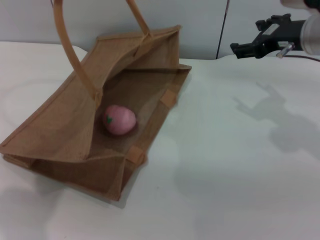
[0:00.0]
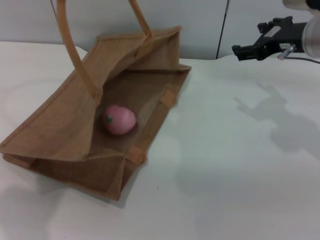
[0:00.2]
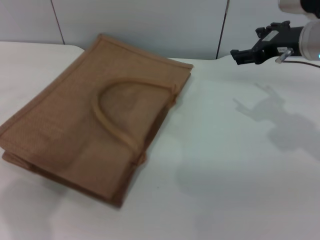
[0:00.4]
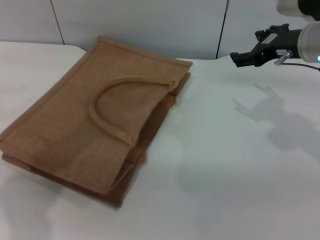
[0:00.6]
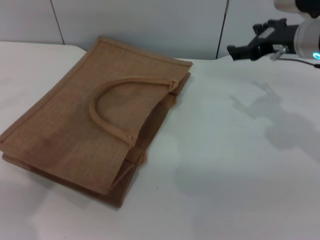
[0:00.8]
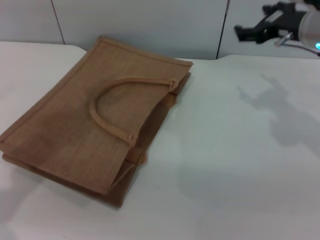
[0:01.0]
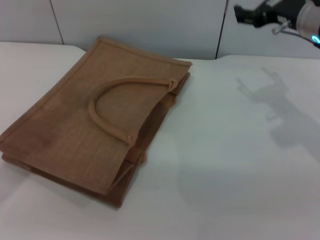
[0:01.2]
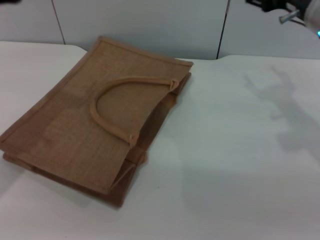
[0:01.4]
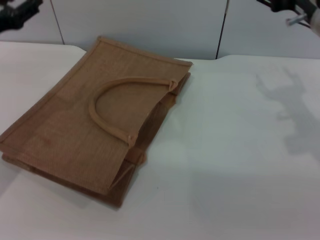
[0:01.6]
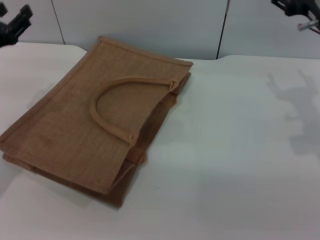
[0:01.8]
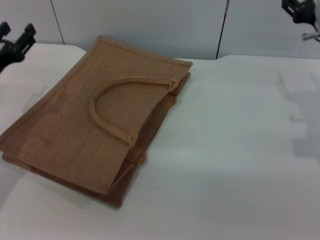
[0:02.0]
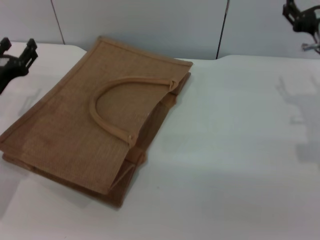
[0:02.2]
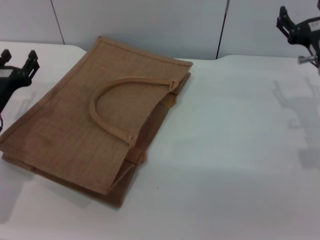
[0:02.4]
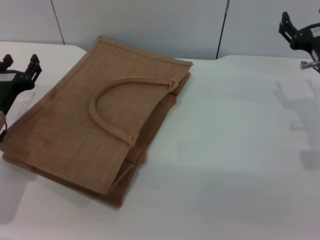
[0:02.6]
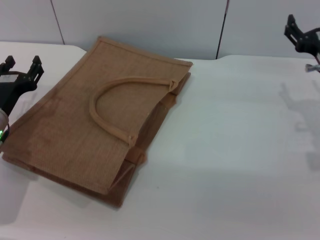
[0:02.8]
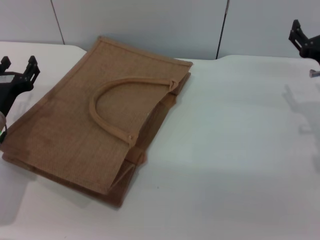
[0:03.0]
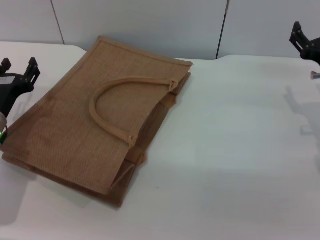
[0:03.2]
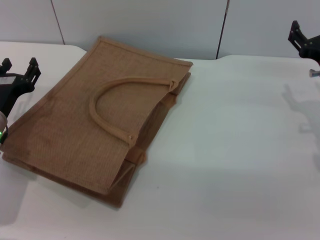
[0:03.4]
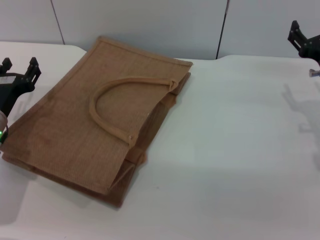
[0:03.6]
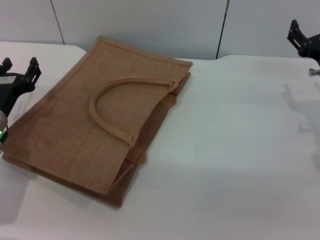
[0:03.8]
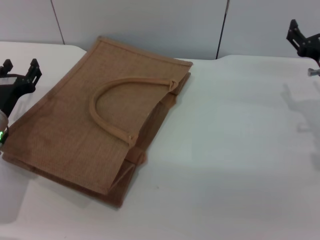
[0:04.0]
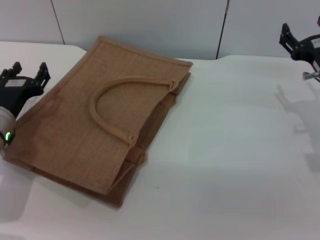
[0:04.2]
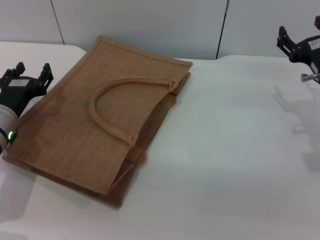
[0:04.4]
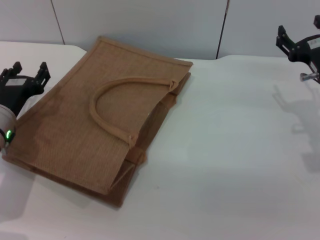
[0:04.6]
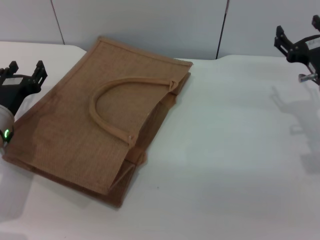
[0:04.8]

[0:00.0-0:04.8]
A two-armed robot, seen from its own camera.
Task of the whole recording: pick up the peach from the table and place it in the brown handbag.
Step, 0:00.0 to 0:00.8: Lower the woven bag with the left gripper to close it.
0:00.0 to 0:01.6: The left gripper goes approximately 20 cm downward and to the left, and opens up.
0:01.6 to 0:03.2: Both grippers travel together downward, about 10 cm.
0:03.2 to 0:04.8: The grippers stay close to where they were, moving slightly.
